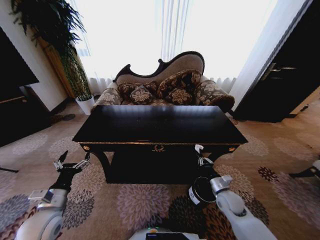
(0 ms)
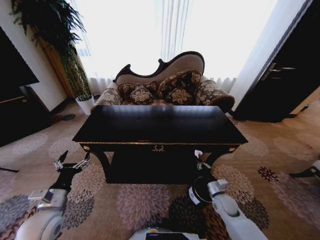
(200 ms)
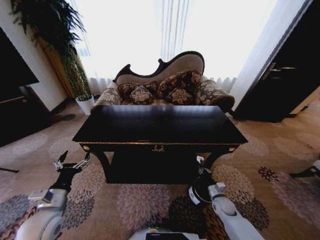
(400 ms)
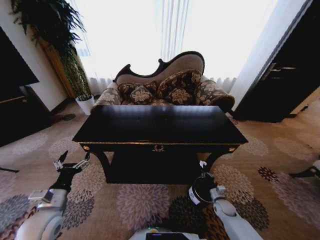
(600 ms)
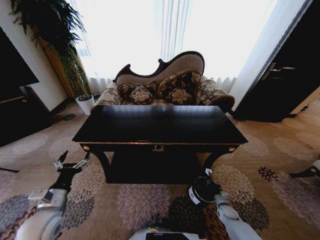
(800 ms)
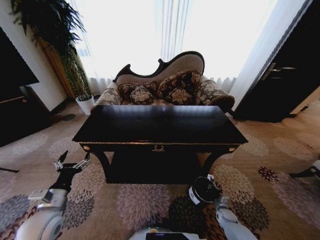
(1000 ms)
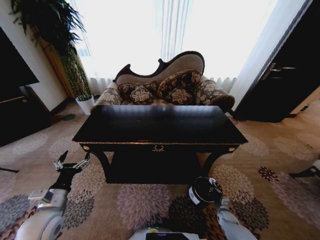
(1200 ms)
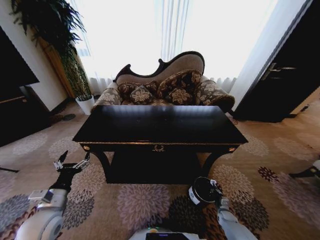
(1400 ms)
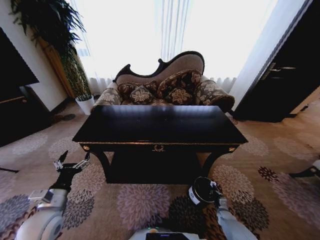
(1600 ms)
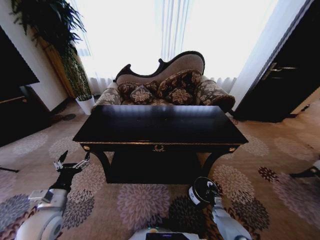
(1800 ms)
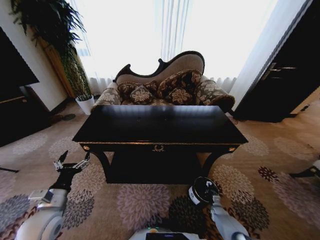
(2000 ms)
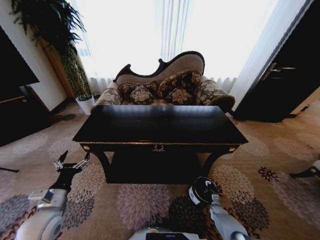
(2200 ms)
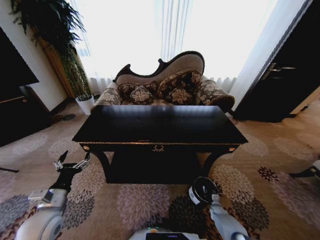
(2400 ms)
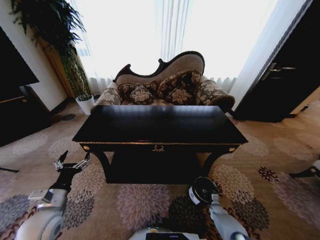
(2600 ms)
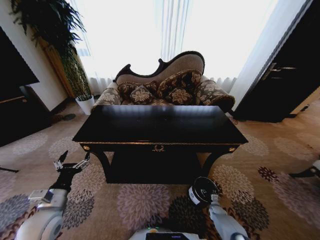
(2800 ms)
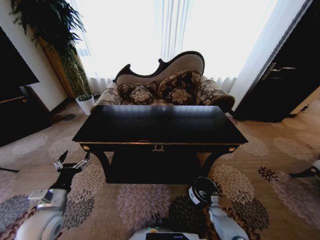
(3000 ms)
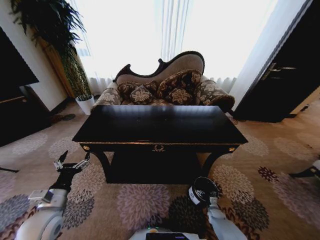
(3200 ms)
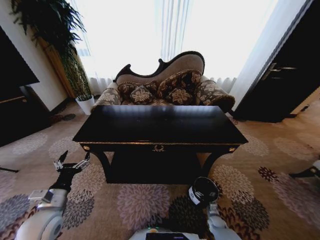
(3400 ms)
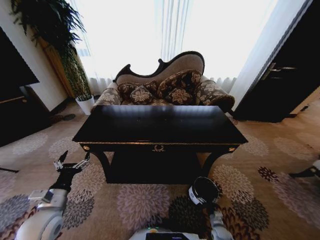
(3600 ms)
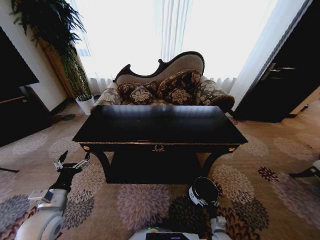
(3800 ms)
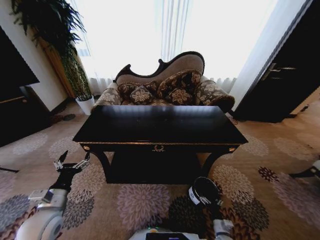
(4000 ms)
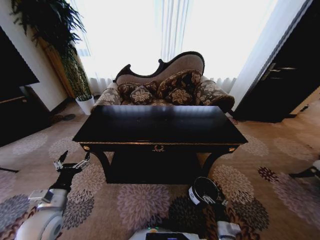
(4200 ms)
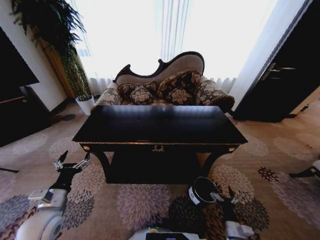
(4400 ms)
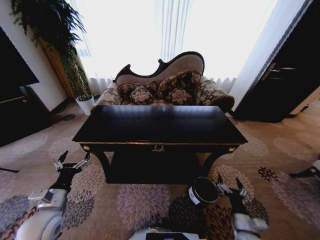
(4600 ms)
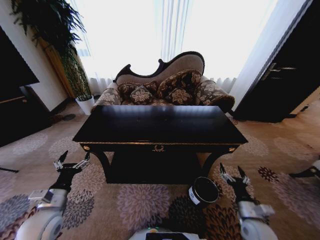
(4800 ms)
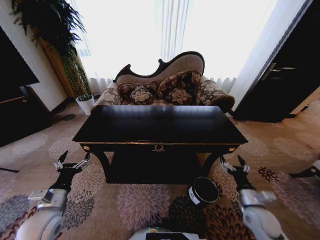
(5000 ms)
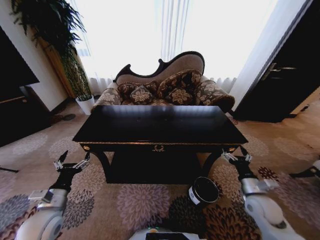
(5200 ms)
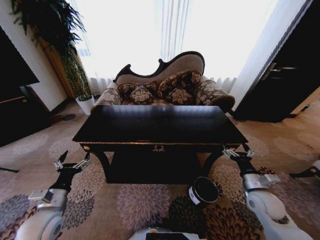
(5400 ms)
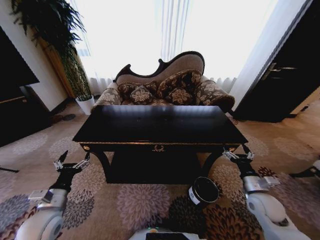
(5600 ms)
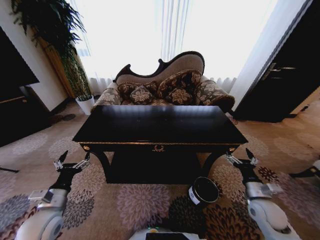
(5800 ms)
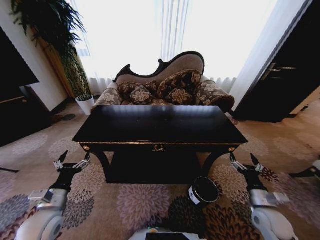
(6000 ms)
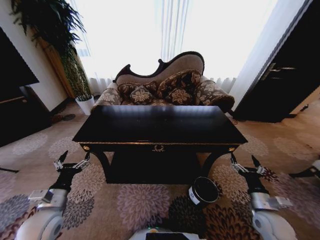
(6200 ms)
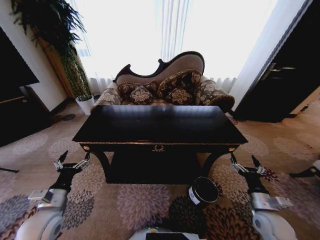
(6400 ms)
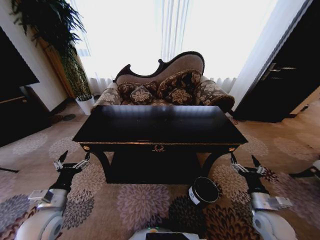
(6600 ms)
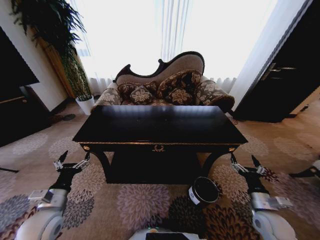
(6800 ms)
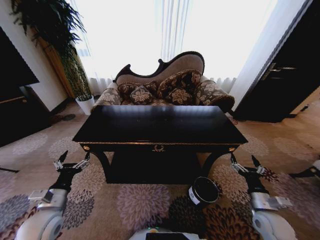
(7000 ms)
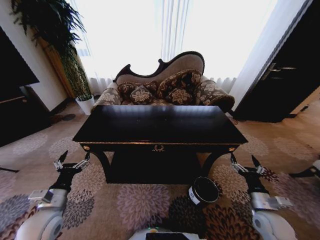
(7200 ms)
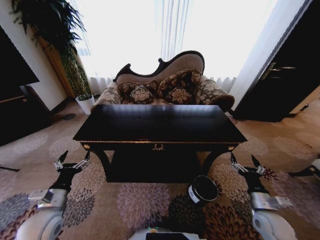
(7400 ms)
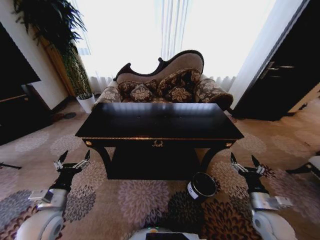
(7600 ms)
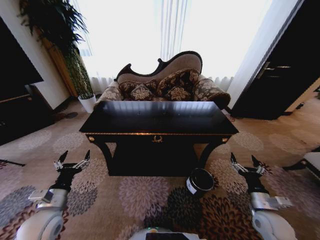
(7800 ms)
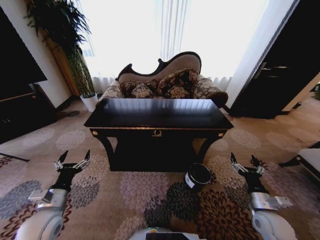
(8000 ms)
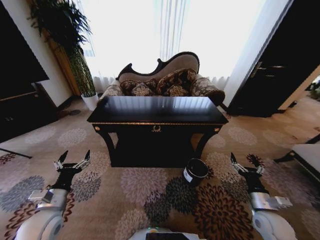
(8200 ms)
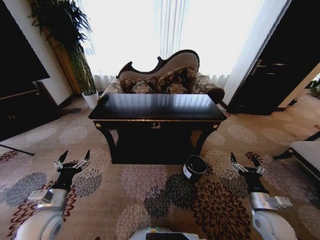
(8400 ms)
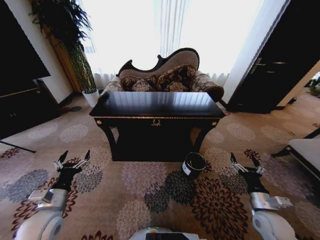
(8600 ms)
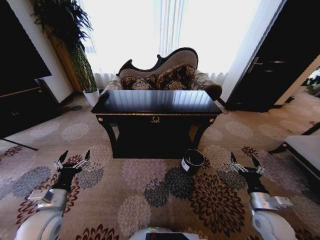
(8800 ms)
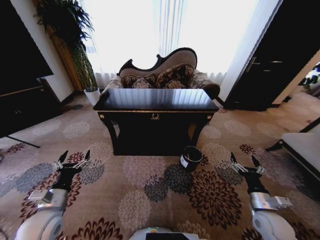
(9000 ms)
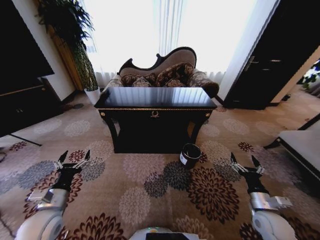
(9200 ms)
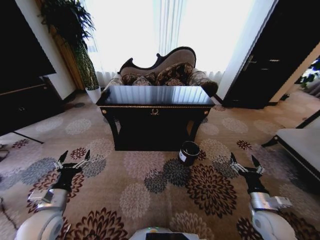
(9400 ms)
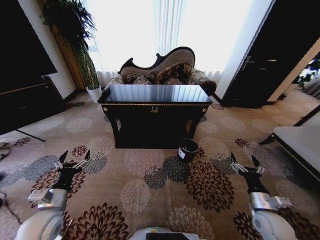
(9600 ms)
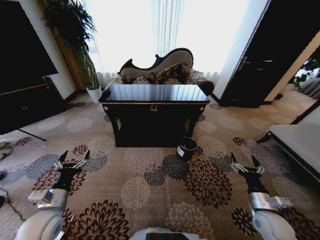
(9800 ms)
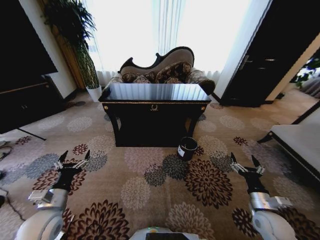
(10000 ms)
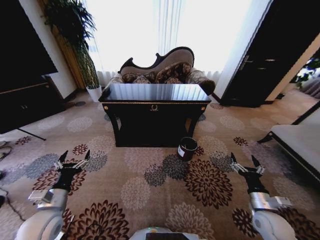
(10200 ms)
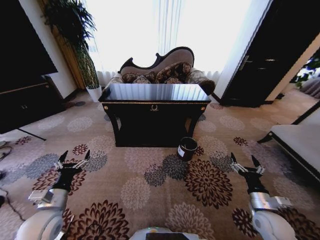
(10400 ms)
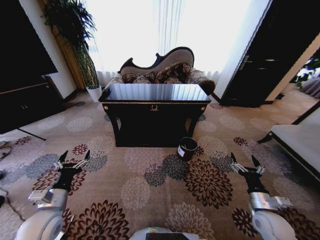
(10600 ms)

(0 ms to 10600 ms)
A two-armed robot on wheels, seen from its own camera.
Task of the whole recording: Move to the front of the table and place the trash on the table into the trash bin.
0 ms - 1600 ms: The right gripper is displaced downward and to the right by roughly 30 cm.
1600 ms - 3000 ms: The right gripper opens.
3000 ms - 4600 ms: The right gripper heads upward and backward, covering approximately 25 cm.
4600 ms - 6000 ms: The right gripper goes about 15 cm upward and forward.
6000 ms - 7600 ms: Neither gripper changes place.
